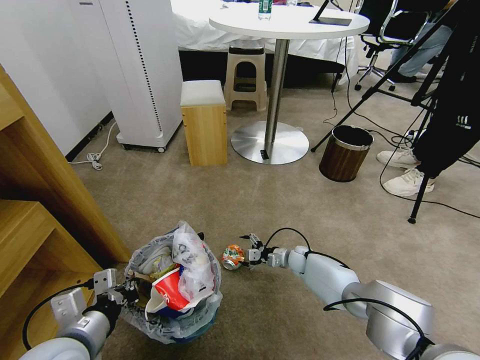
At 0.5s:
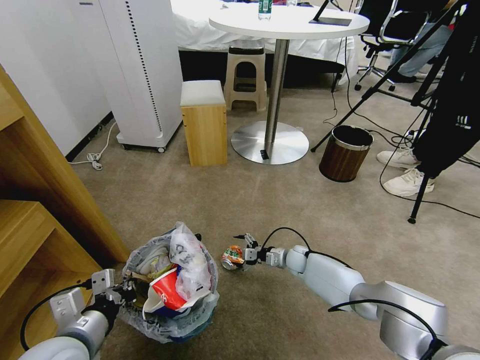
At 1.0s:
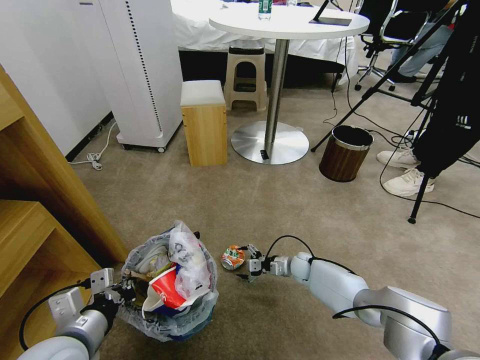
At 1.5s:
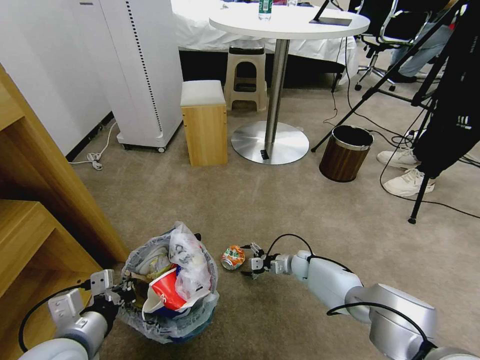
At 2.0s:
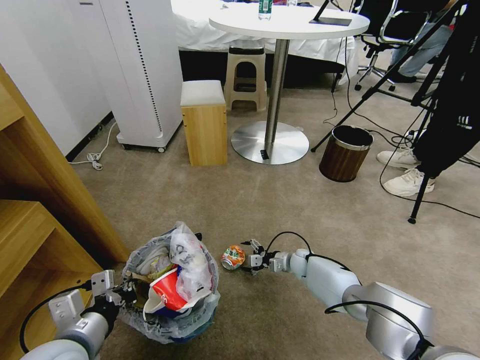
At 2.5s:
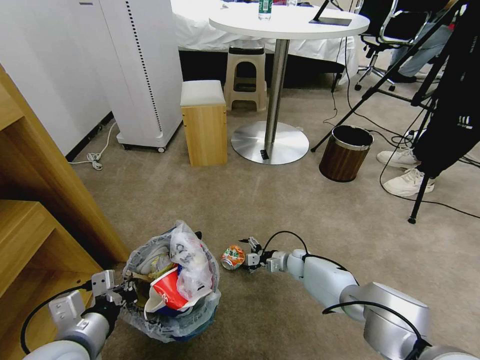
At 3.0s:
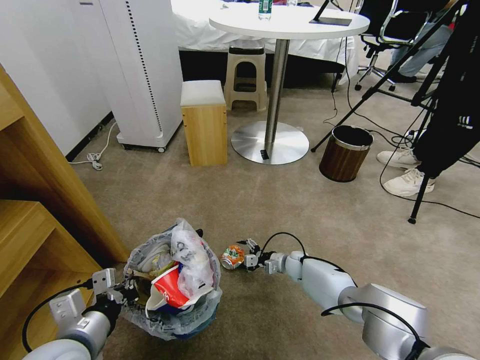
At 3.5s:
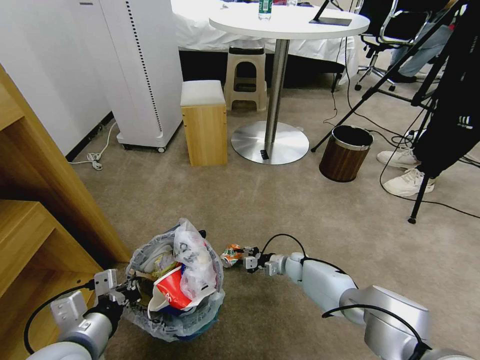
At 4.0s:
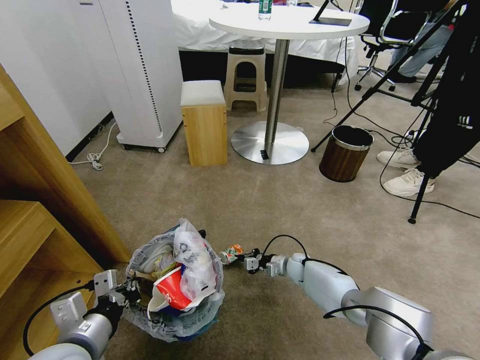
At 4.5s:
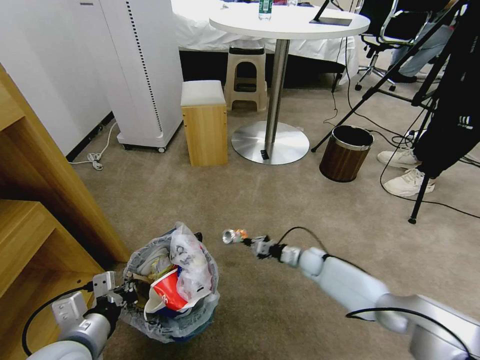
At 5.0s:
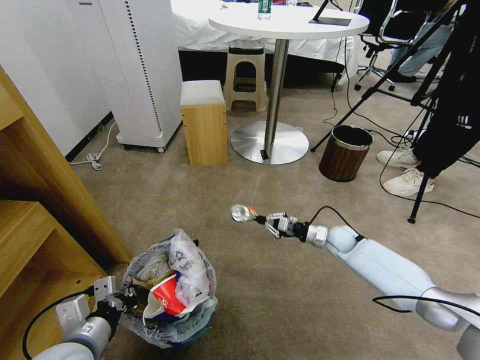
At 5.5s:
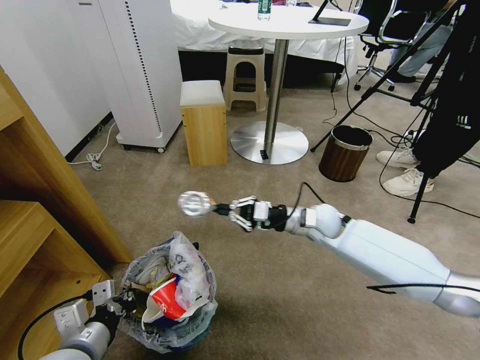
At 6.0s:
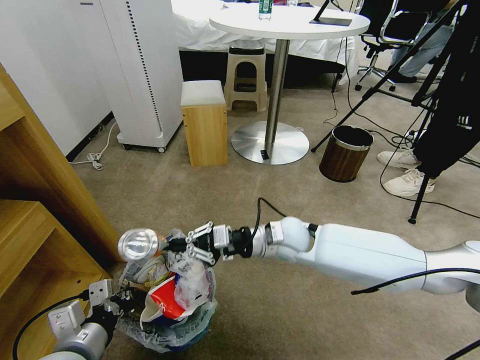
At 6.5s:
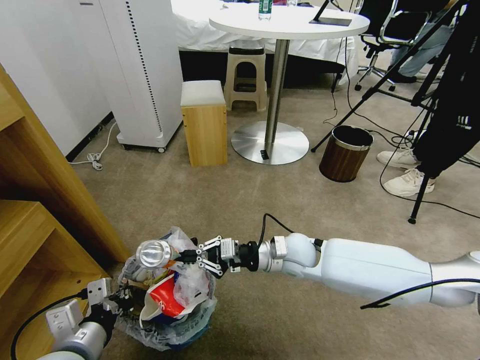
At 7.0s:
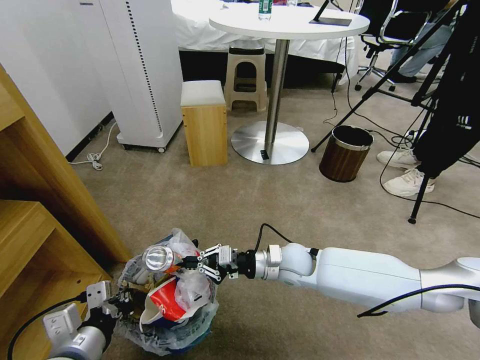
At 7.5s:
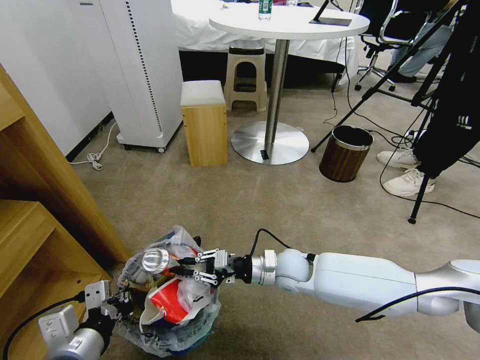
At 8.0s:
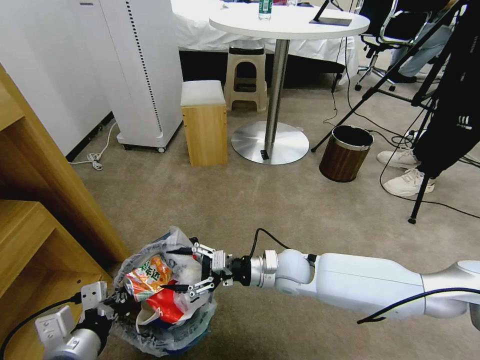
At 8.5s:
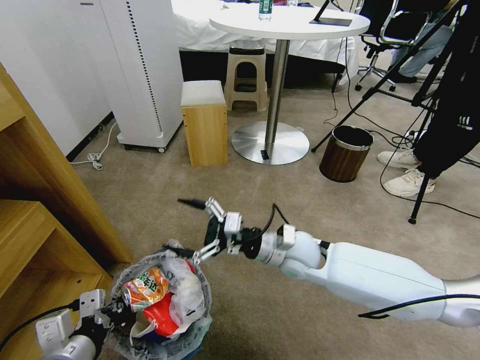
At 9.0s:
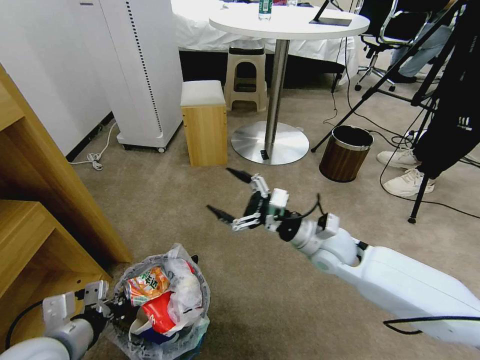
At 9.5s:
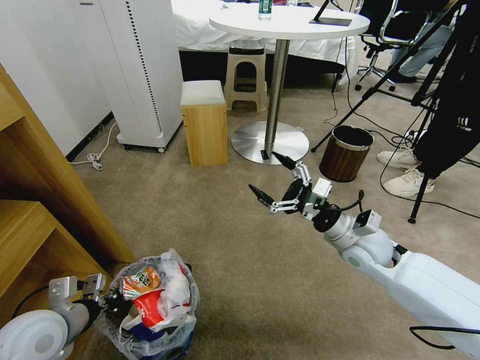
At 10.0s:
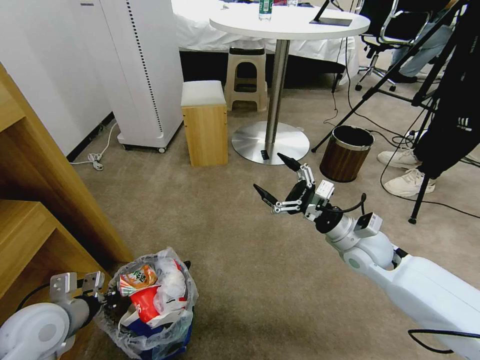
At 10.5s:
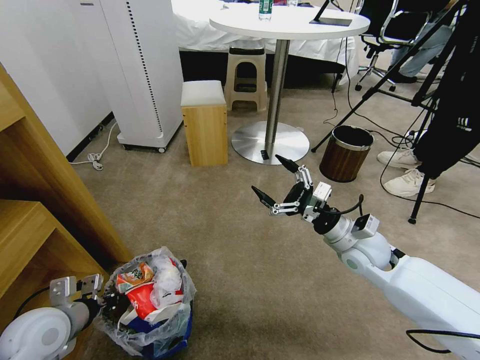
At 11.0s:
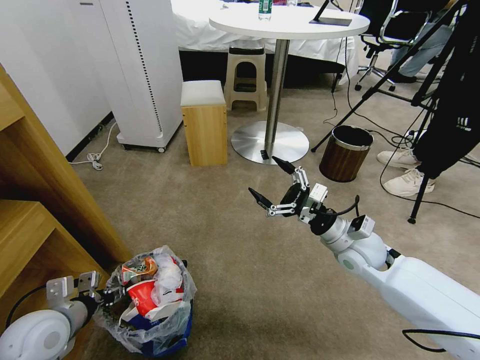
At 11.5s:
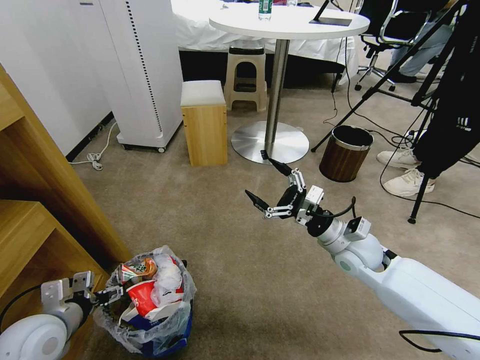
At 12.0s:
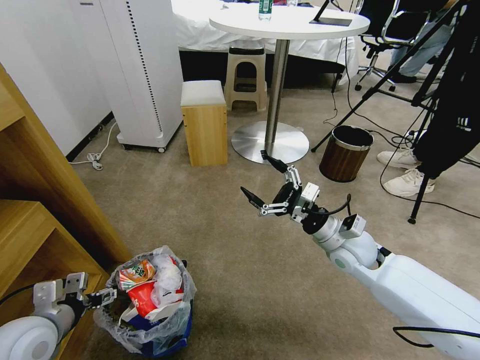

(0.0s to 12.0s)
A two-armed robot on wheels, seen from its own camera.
Task of the whole recording: Pick up the trash bin and place the garbage on the floor into it.
0.0s - 2.0s: The grippers stay close to where they were, moving slightly.
2.0s - 4.0s: The right gripper closes its fingers.
4.0s - 6.0s: The right gripper goes roughly 30 cm upward.
6.0s - 8.0s: The right gripper shifts roughly 5 cm downward, and opens.
8.0s - 10.0s: The right gripper goes approximately 15 cm to the right and upward. The left gripper moves forward and to the left, some 15 cm.
10.0s - 12.0s: The left gripper opens up.

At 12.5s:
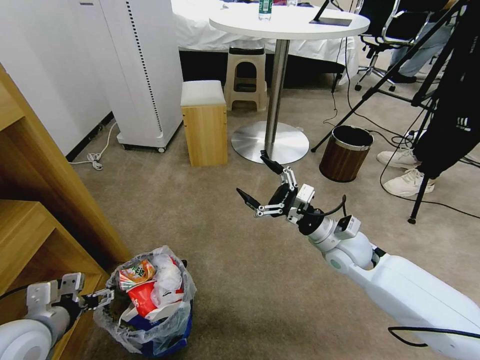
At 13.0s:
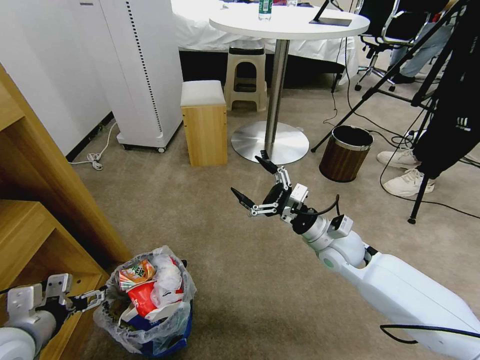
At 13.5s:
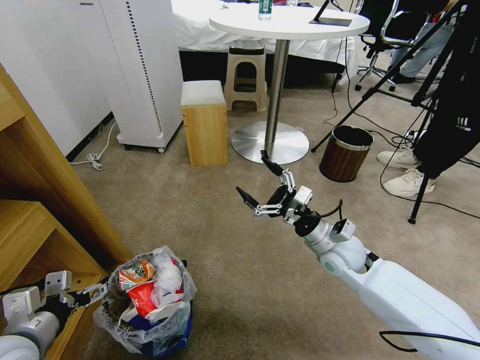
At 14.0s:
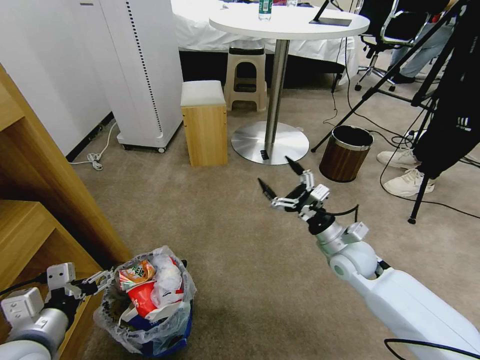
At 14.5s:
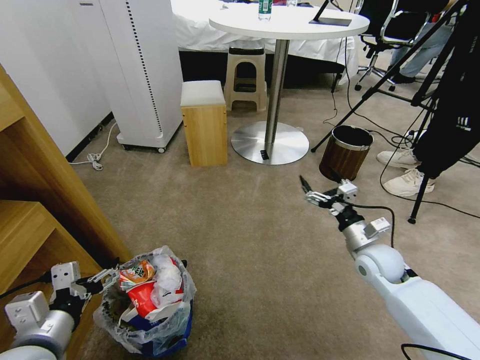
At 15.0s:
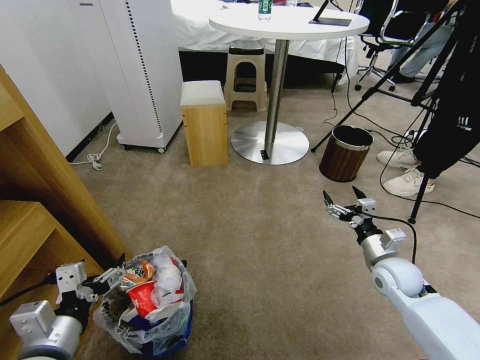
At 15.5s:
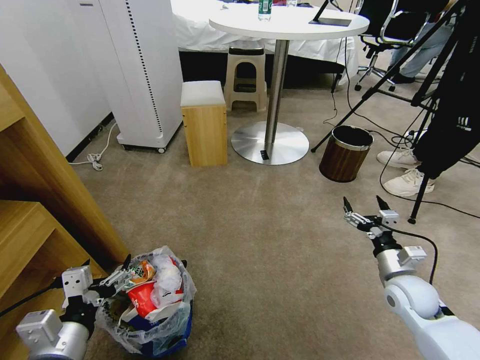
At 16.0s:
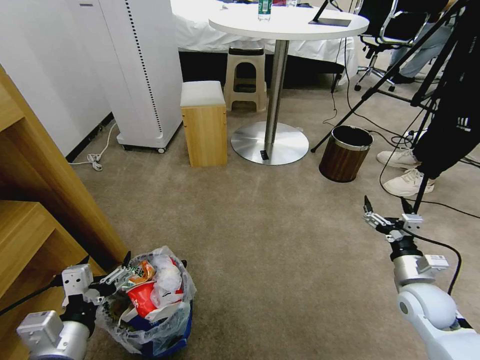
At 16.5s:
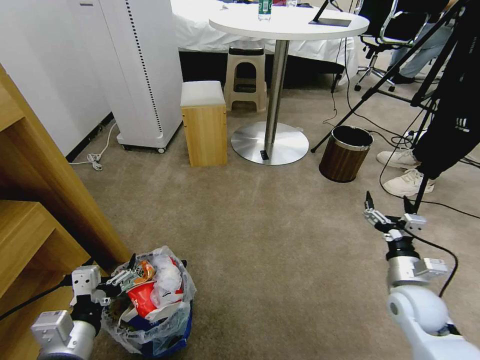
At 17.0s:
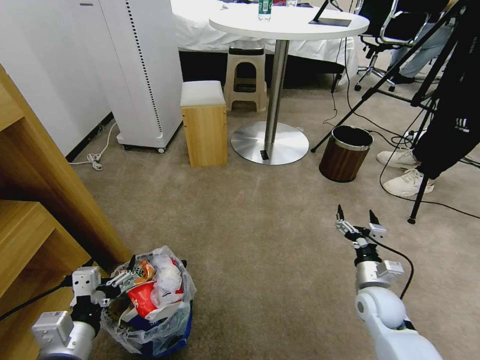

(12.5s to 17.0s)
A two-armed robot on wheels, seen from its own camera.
Task of the whole recording: Pick up the trash bin and place the garbage on the floor into it.
12.5s - 14.5s: The right gripper shifts about 10 cm to the right. The left gripper heads to the right, covering about 5 cm.
14.5s - 17.0s: The right gripper travels downward and backward by roughly 10 cm.

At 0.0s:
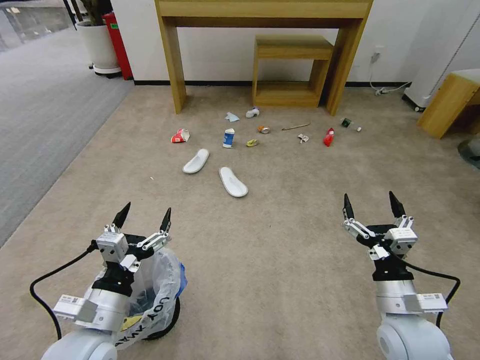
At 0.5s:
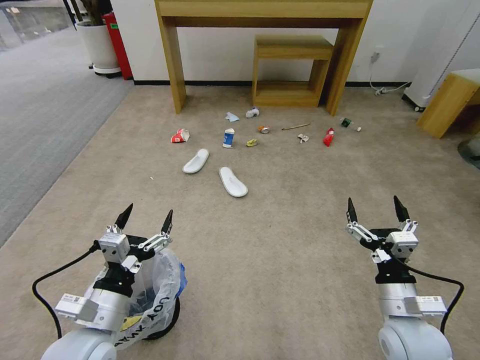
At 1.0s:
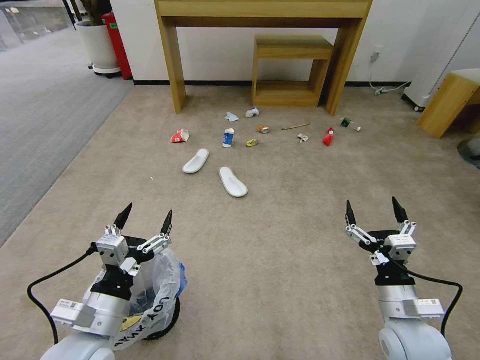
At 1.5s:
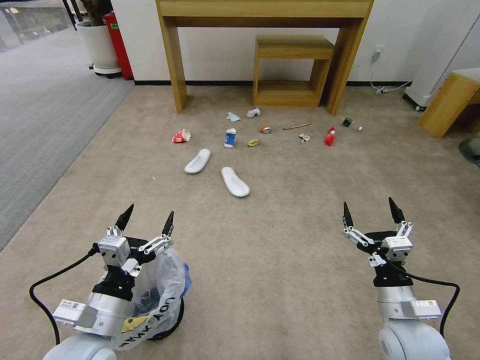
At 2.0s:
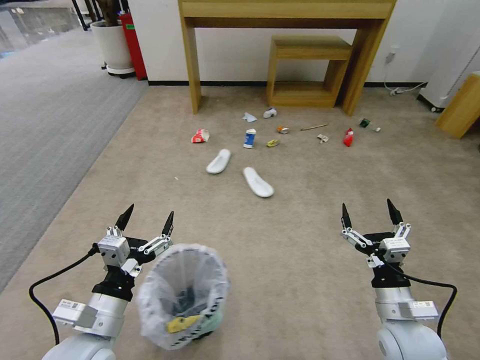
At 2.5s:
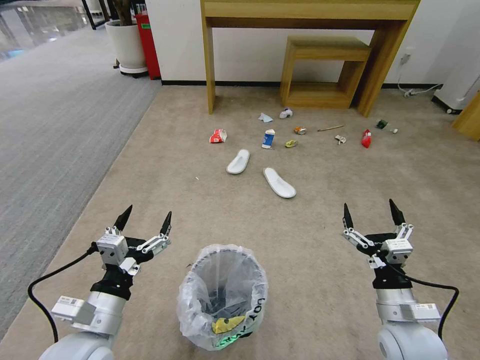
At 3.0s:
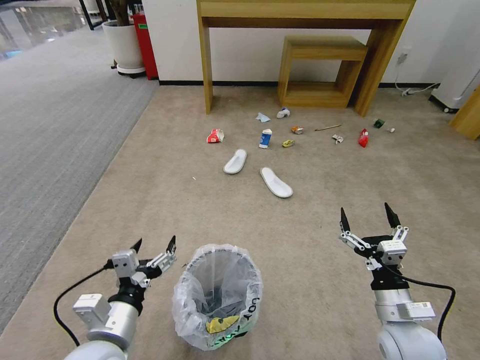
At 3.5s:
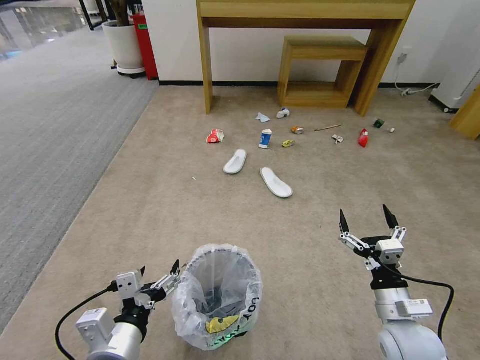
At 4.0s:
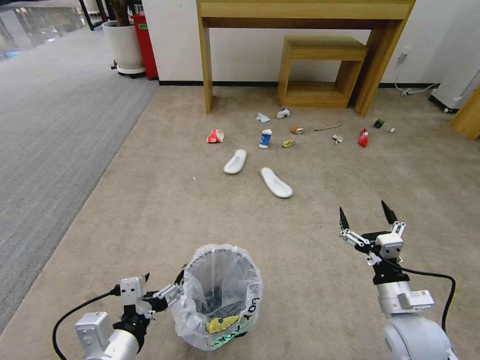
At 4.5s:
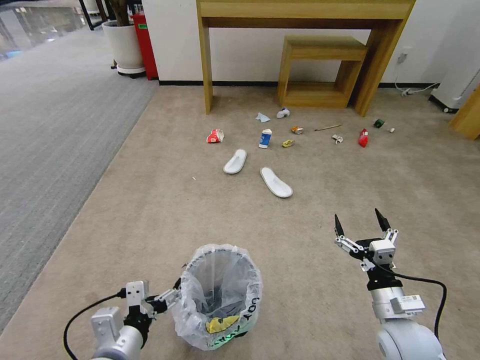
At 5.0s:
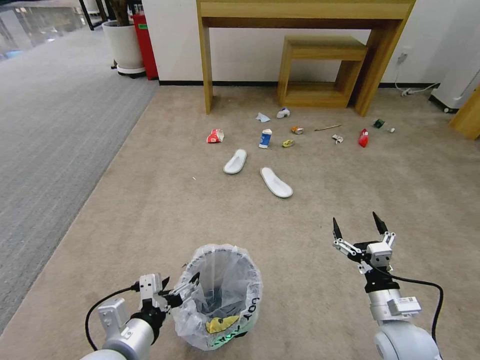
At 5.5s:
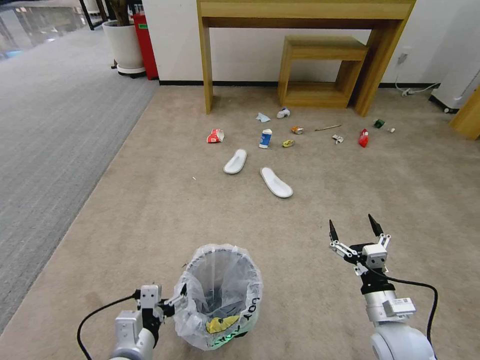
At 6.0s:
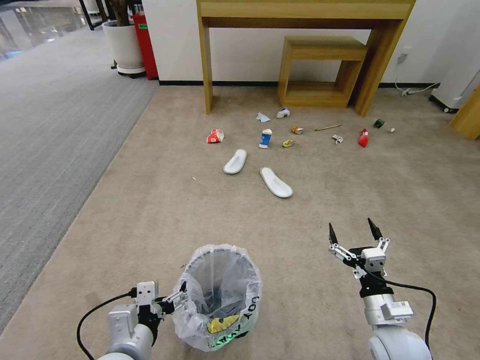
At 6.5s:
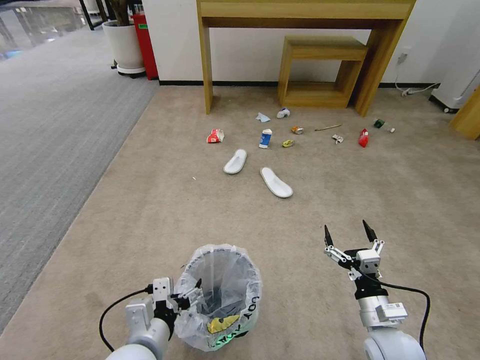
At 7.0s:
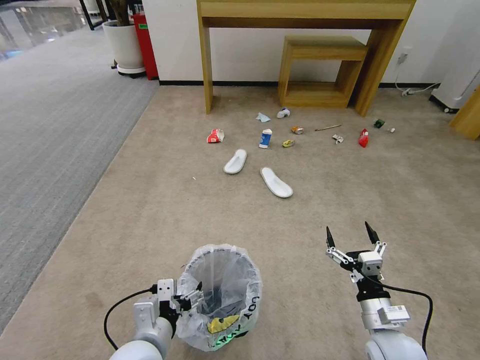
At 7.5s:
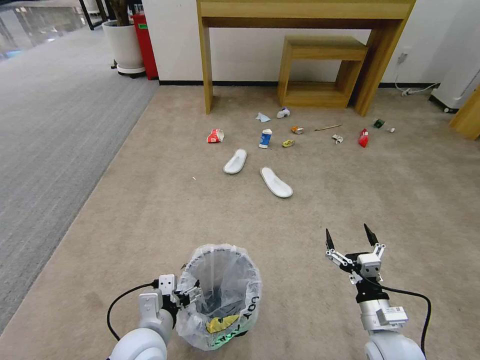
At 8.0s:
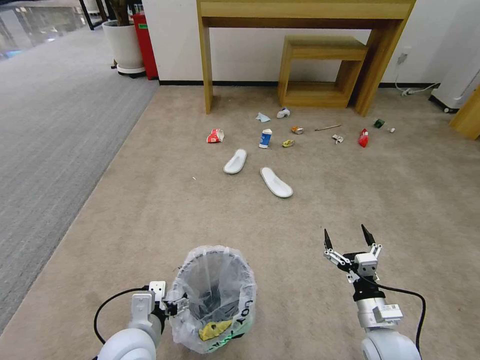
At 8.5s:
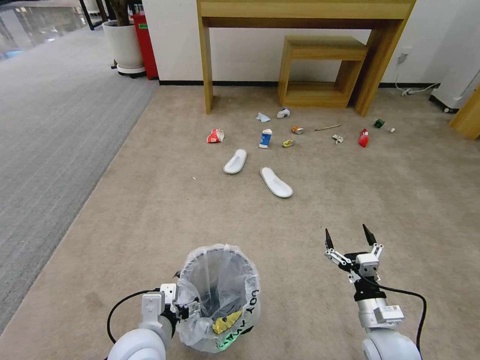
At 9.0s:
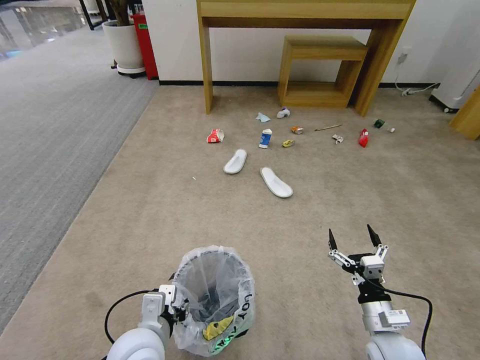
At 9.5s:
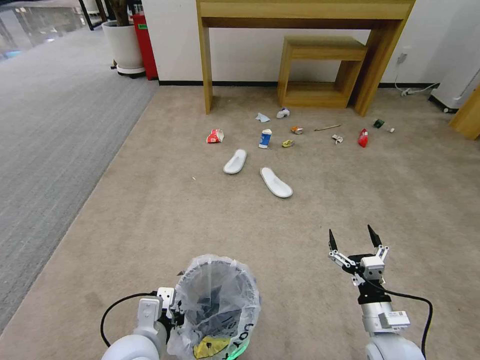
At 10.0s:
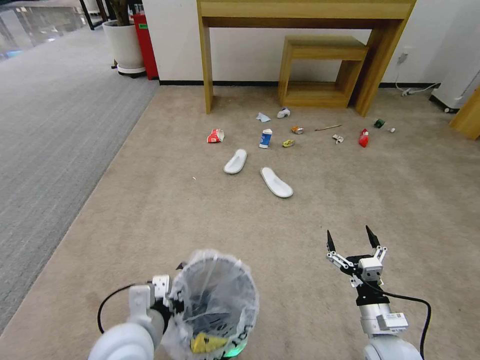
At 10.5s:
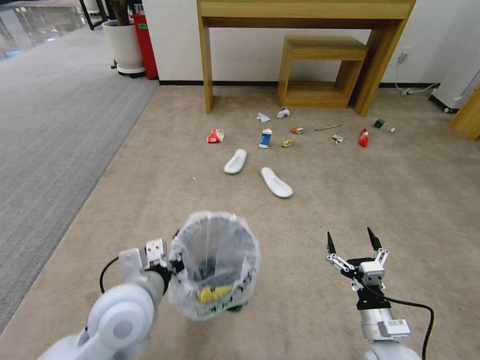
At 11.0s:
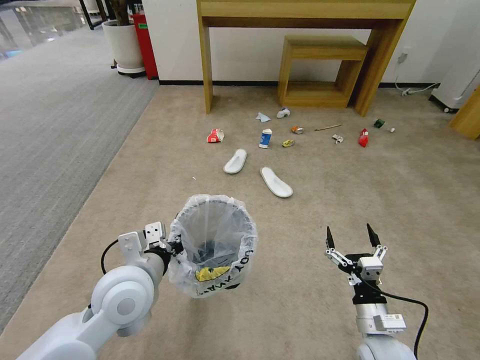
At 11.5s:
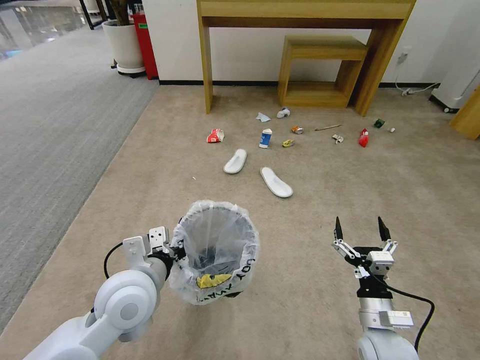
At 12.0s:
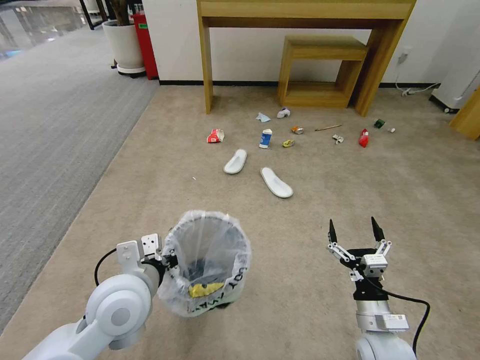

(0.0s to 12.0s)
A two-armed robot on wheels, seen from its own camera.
Task of the whole recording: Pick up the trash bin and place the garbage on the floor into it.
2.0s - 4.0s: The left gripper heads backward, covering some 5 cm.
4.0s - 6.0s: The left gripper moves downward, approximately 5 cm.
6.0s - 8.0s: The grippers make only small movements.
8.0s - 10.0s: The left gripper ends up about 5 cm from where it was, and closes.
10.0s - 12.0s: The left gripper shifts about 10 cm forward and upward.
